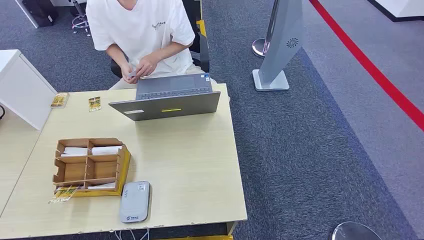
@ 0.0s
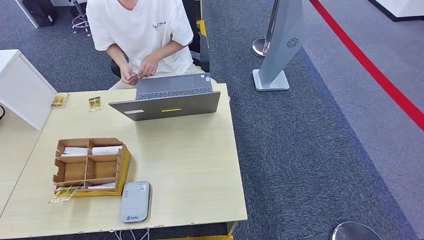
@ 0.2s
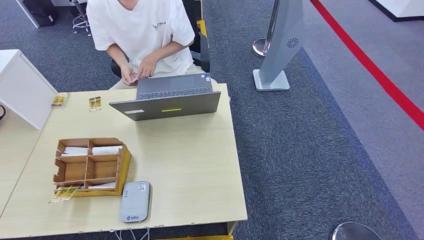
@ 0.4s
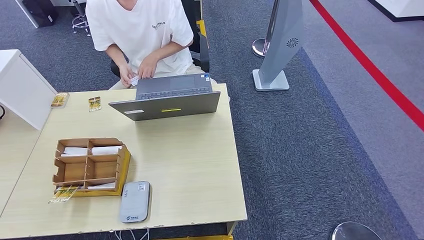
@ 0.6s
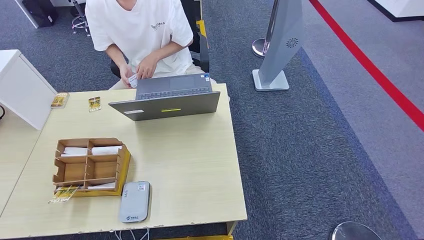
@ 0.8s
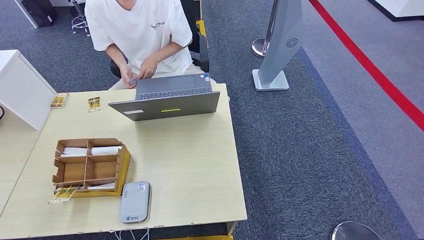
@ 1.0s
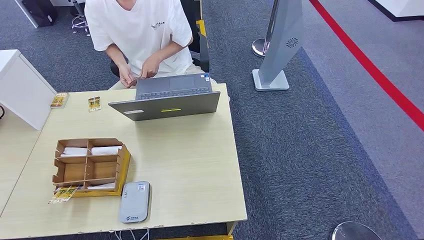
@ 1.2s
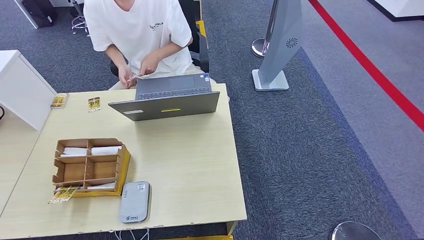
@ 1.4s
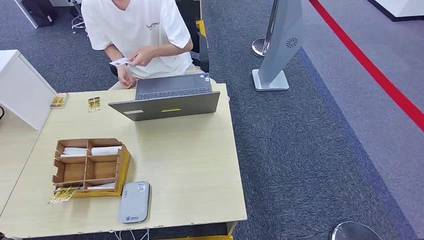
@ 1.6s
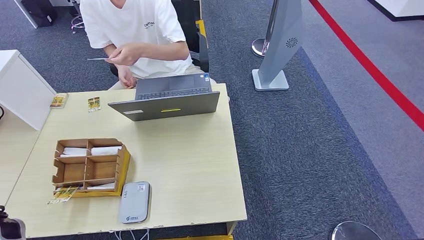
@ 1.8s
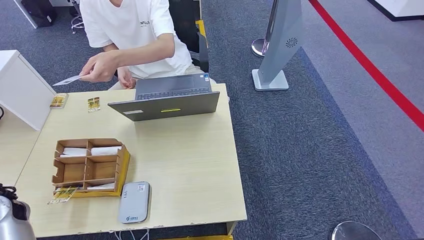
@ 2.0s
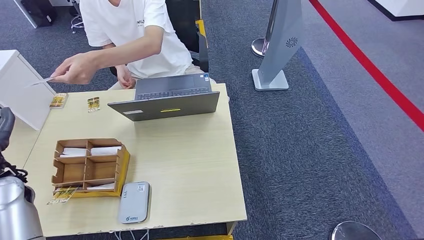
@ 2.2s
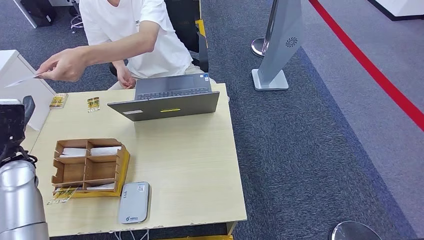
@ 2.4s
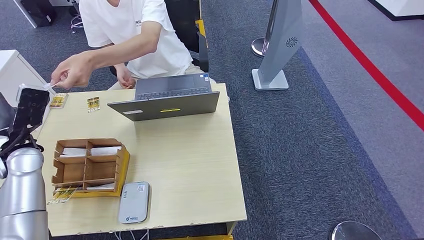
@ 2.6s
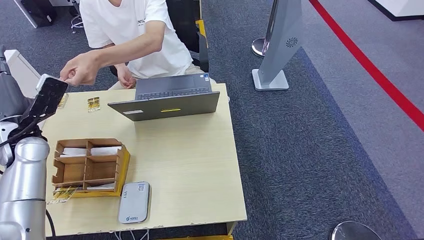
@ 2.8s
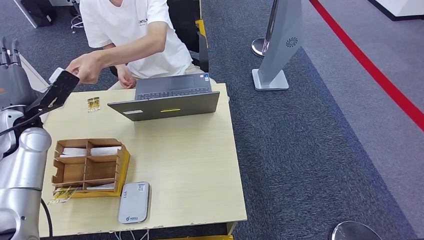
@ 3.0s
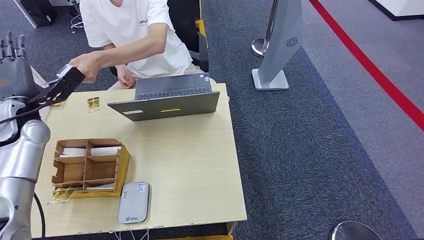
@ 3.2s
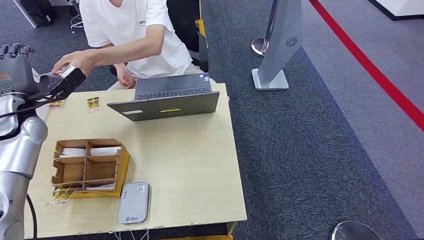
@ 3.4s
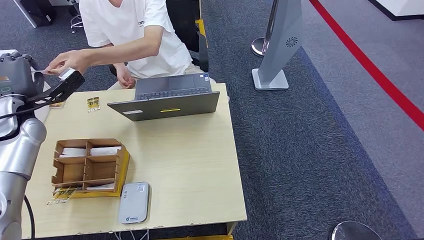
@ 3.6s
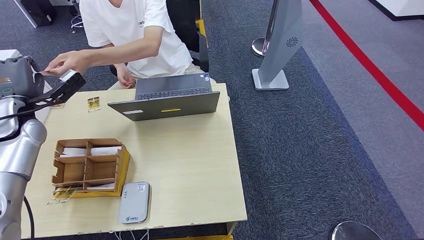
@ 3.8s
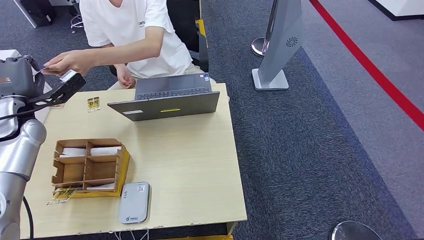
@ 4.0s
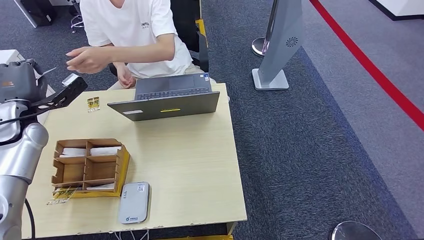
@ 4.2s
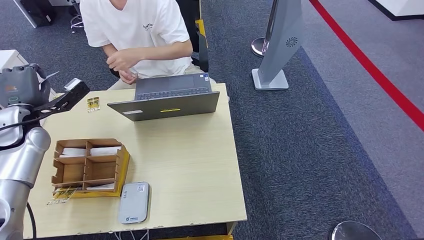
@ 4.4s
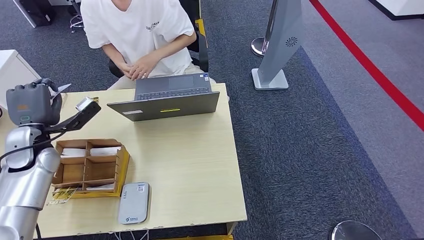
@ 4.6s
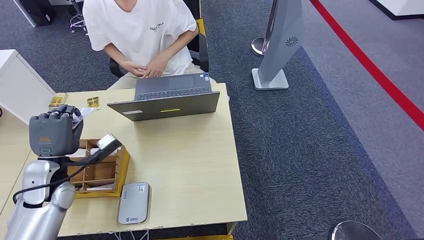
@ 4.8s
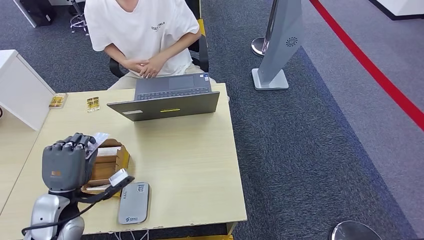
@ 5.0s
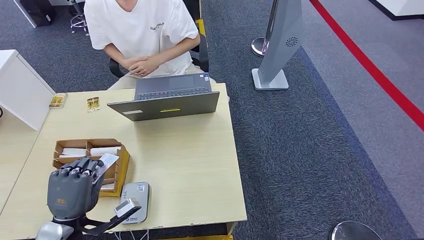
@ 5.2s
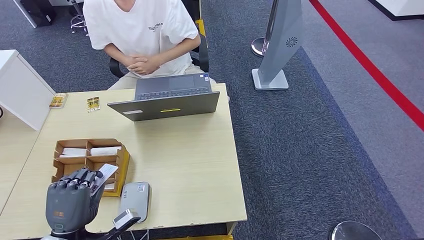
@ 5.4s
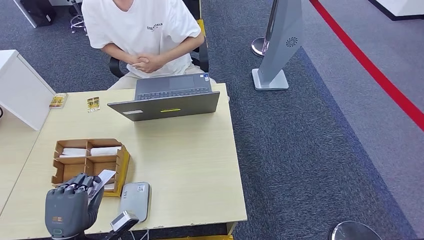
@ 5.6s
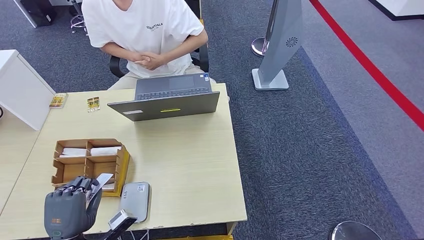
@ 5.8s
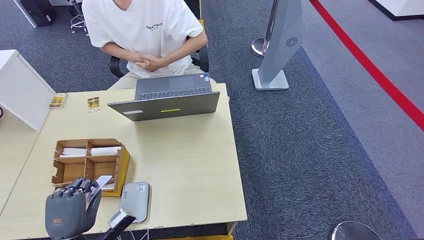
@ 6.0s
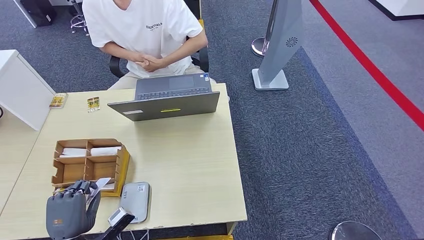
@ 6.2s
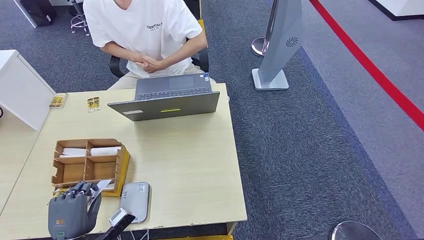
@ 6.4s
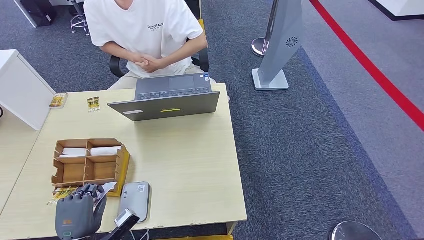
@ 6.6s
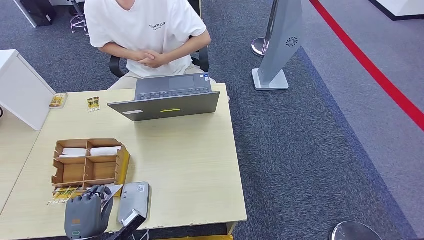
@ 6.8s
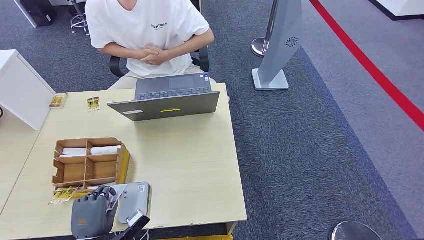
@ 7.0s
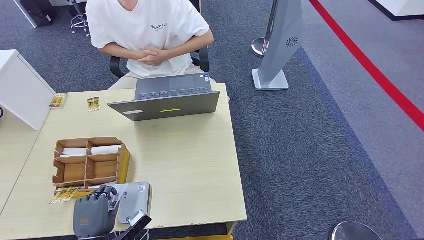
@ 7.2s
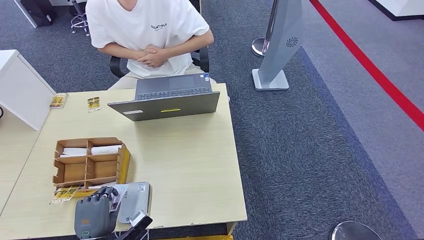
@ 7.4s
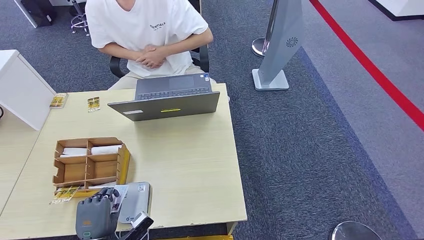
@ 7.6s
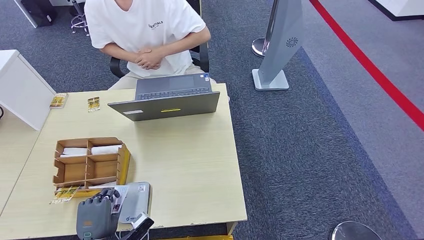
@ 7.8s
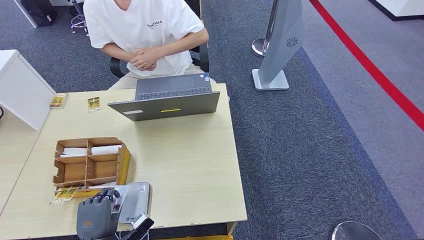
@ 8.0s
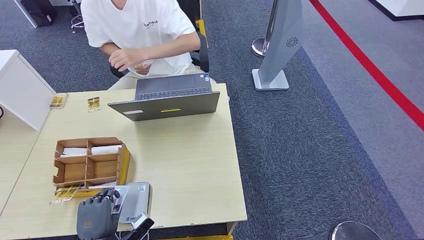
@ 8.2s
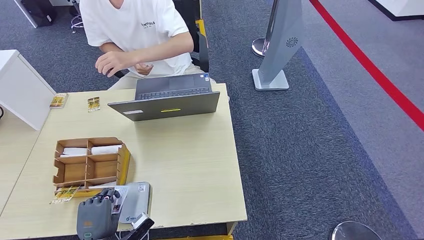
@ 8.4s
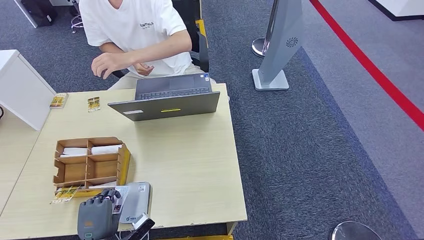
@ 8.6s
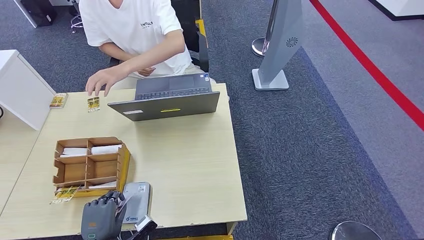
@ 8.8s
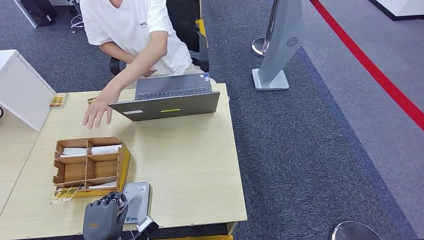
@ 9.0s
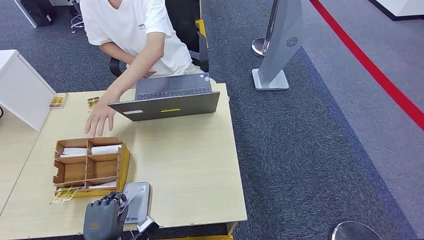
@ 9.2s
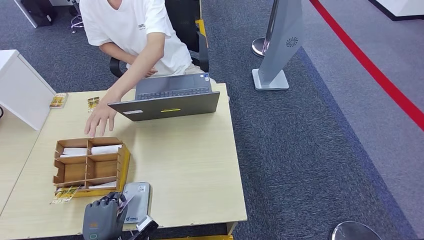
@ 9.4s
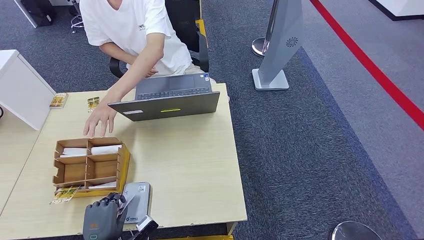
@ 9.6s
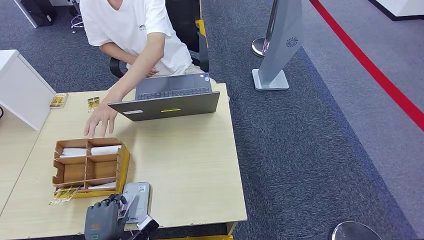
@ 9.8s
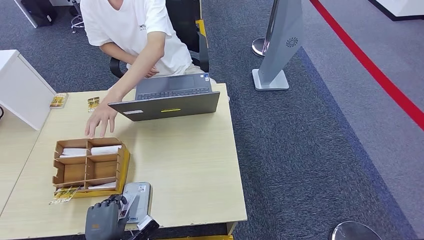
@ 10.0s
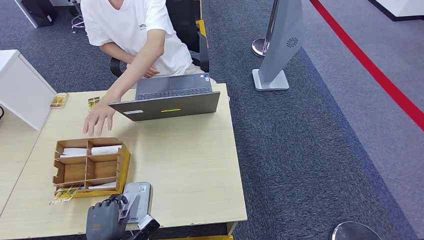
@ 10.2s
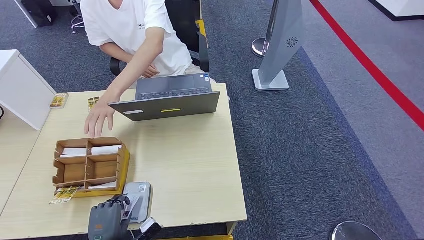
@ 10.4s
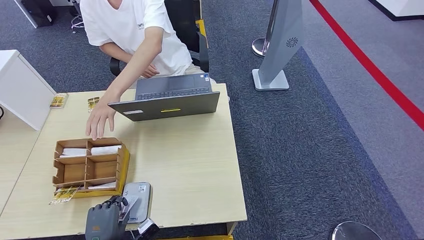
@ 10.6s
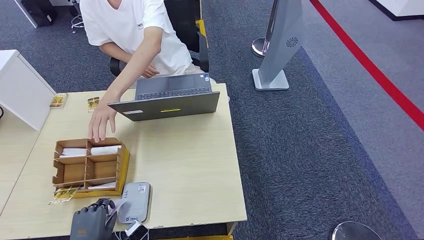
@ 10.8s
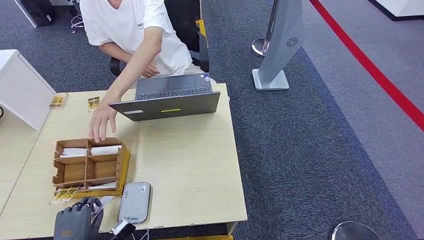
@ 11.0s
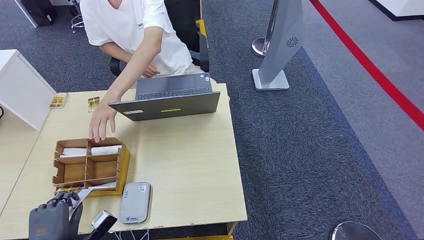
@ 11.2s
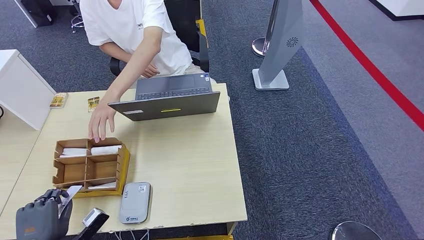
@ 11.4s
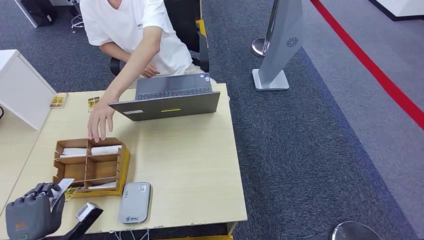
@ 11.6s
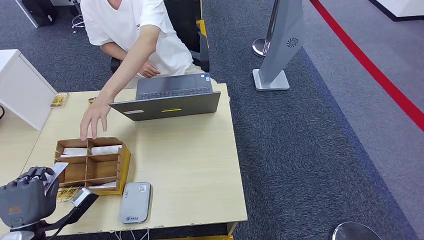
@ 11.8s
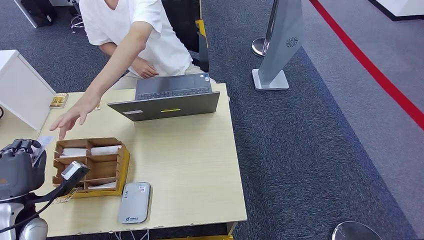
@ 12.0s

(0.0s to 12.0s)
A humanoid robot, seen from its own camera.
Step, 0.0s - 4.0s: Take the ID card from the person's hand.
Step, 4.2s - 8.8s: Place the ID card on the card reader.
1.6s - 3.0s: The left hand shifts about 20 cm forward and upward.
4.4s - 6.0s: The left hand heads backward and downward, covering roughly 30 cm.
6.0s - 7.6s: The left hand shifts approximately 5 cm downward.
7.6s - 9.0s: Both hands stay put.
9.0s - 10.4s: The hands make only small movements.
10.4s - 12.0s: The left hand moves to the left, upward and forward, about 20 cm.

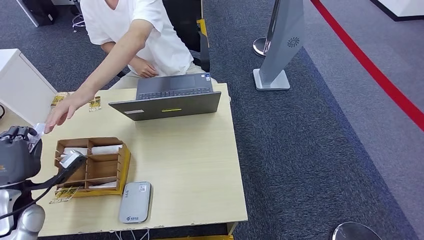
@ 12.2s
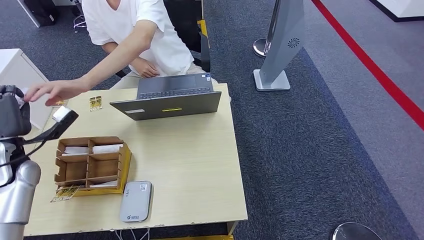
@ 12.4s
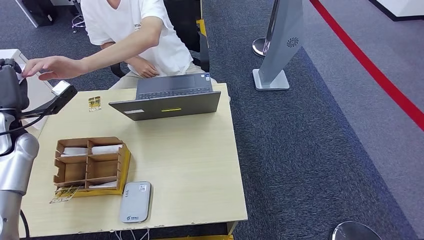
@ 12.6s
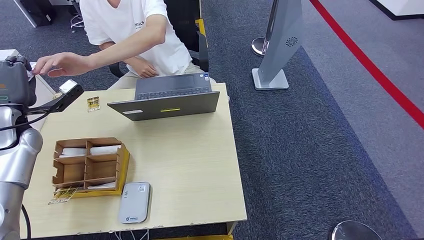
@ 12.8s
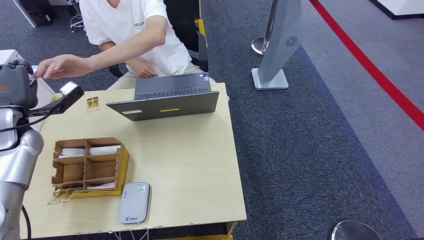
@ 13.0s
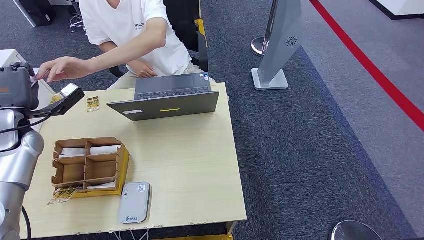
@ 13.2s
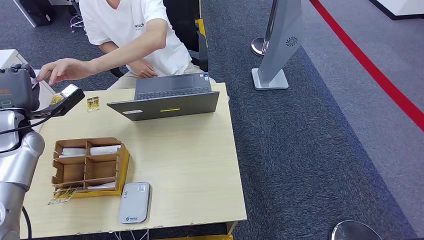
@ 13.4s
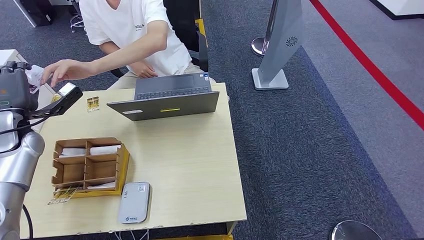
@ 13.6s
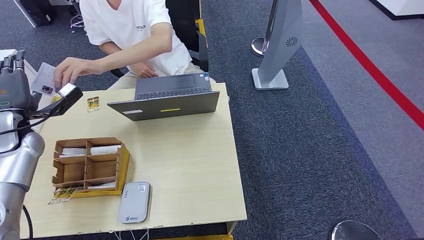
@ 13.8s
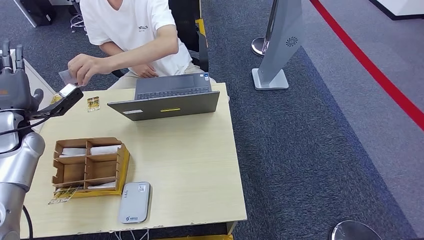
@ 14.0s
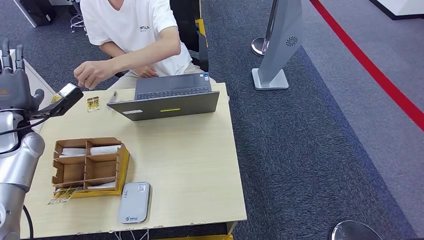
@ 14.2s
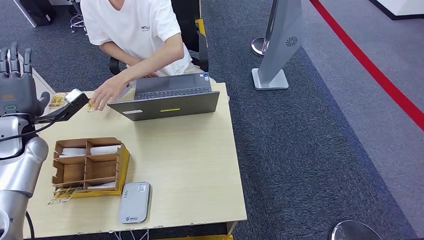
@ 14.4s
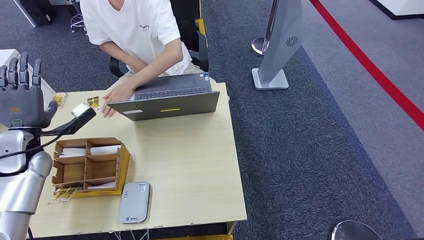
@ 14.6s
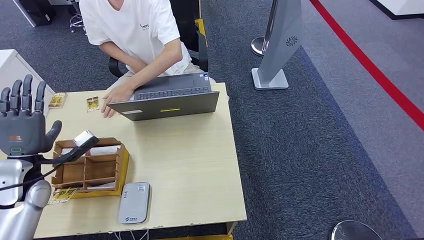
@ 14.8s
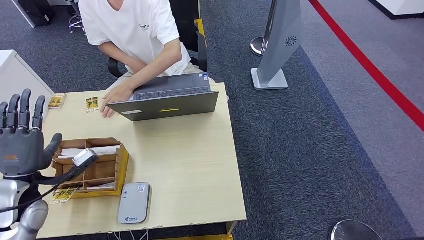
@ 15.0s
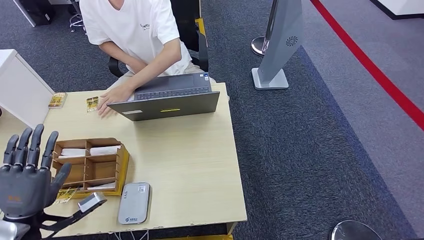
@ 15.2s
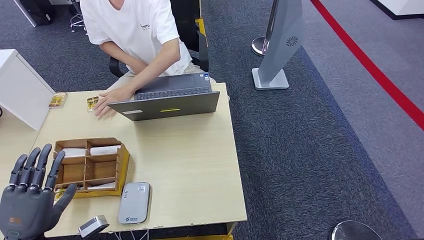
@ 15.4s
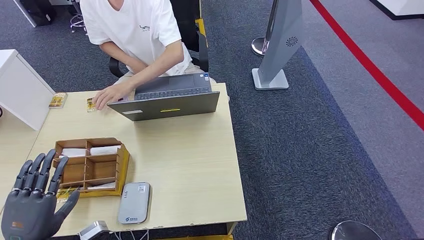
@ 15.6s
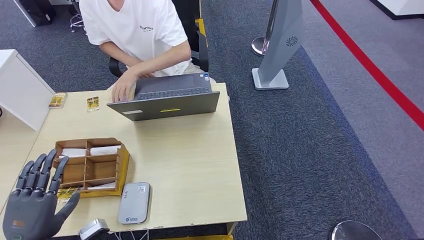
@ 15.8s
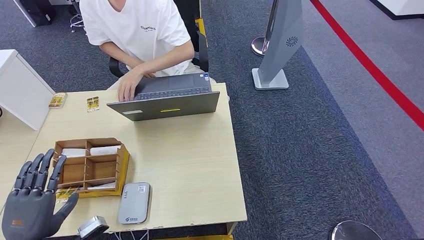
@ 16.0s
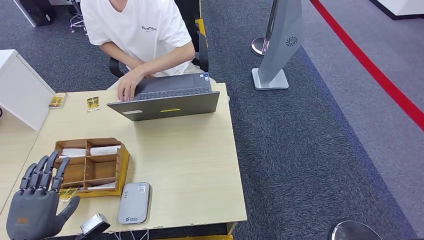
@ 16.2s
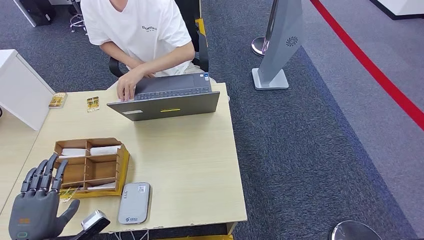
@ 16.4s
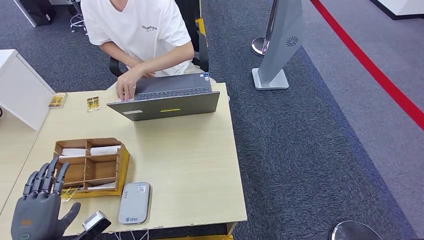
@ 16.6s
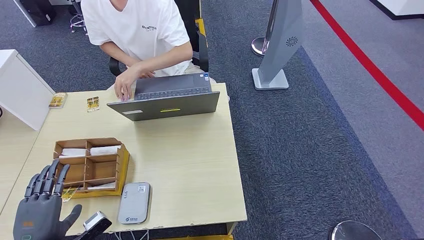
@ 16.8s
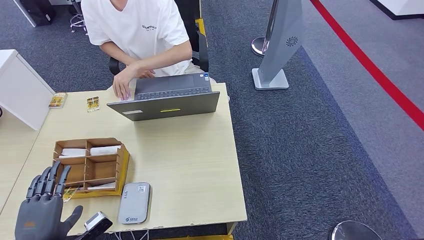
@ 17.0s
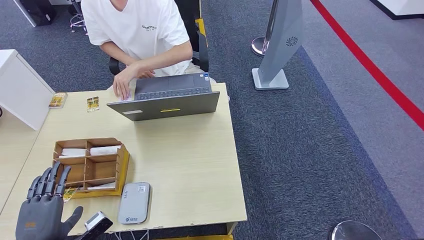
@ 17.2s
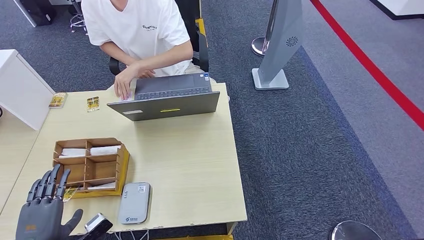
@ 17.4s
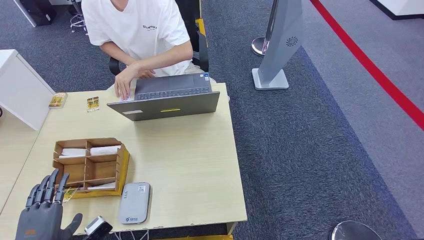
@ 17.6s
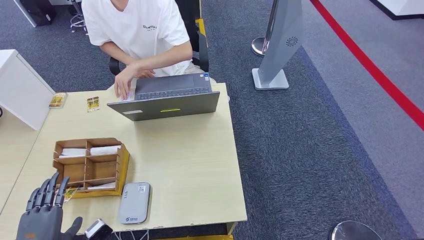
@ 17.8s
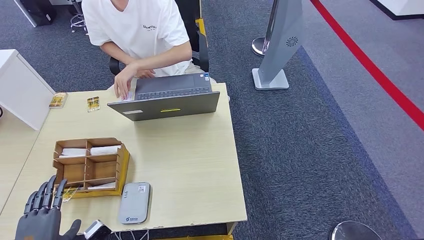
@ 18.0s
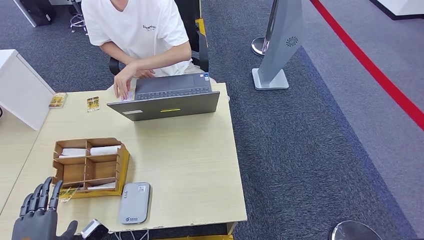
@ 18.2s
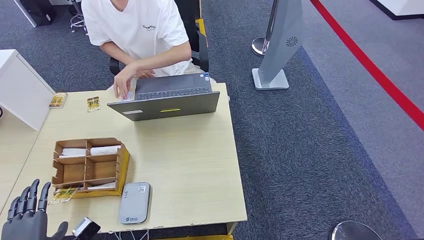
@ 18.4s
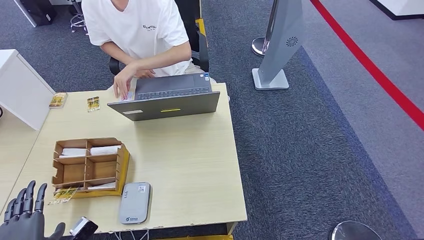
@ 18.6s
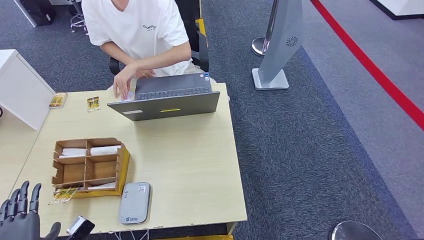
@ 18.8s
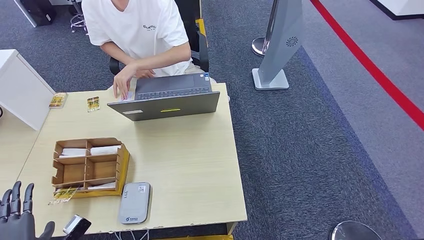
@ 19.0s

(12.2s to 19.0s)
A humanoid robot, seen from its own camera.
12.2s - 13.6s: The left hand travels forward and upward by roughly 15 cm.
13.6s - 15.0s: The left hand heads backward and downward, covering some 15 cm.
15.0s - 16.2s: The left hand goes approximately 15 cm backward.
16.2s - 17.6s: The hands move only a little.
17.6s - 19.0s: The hands stay close to where they were, moving slightly.
